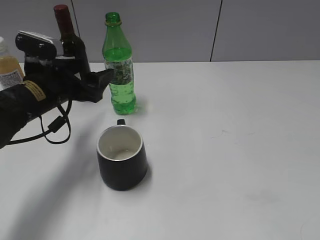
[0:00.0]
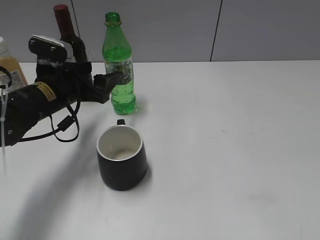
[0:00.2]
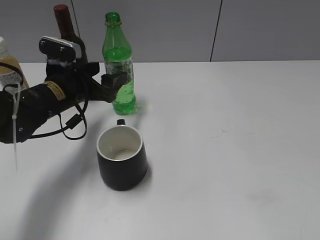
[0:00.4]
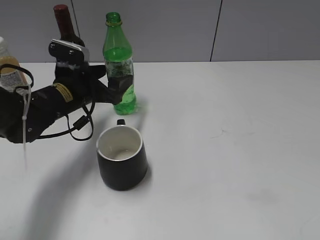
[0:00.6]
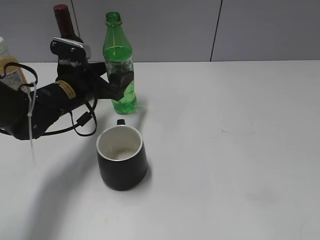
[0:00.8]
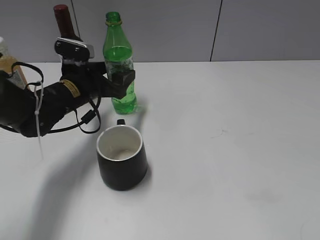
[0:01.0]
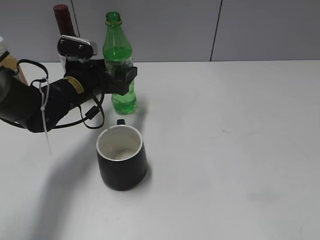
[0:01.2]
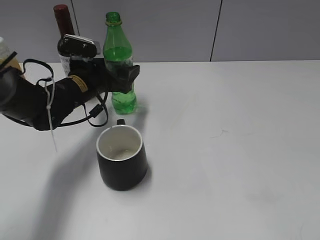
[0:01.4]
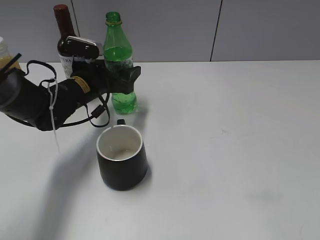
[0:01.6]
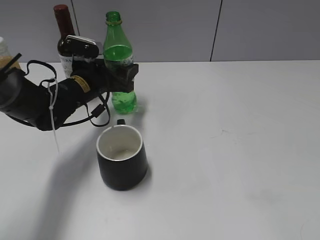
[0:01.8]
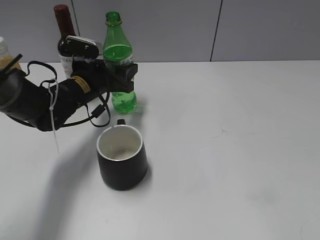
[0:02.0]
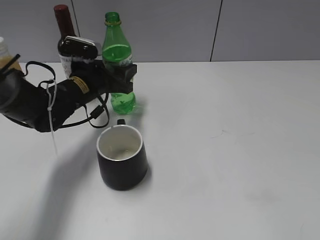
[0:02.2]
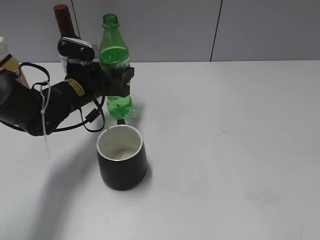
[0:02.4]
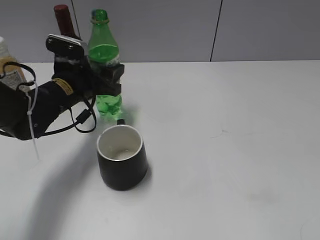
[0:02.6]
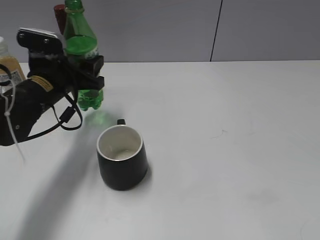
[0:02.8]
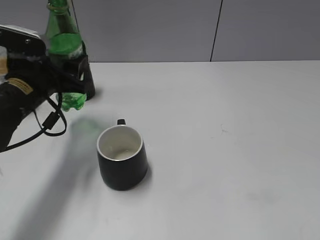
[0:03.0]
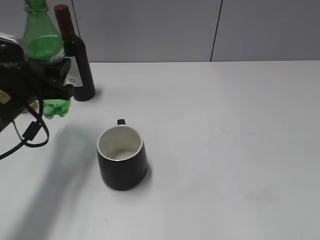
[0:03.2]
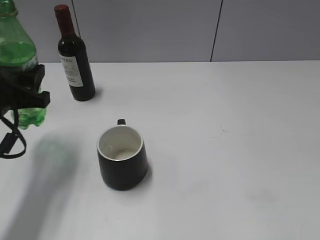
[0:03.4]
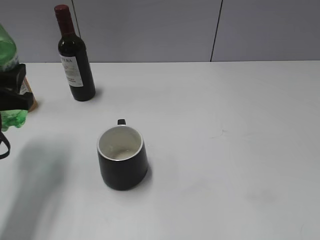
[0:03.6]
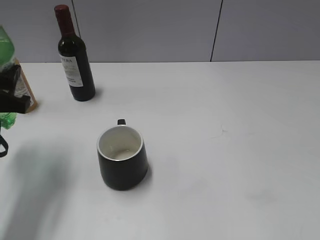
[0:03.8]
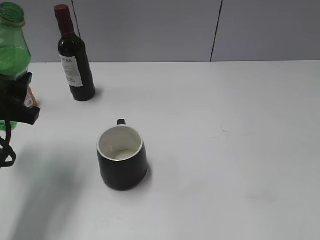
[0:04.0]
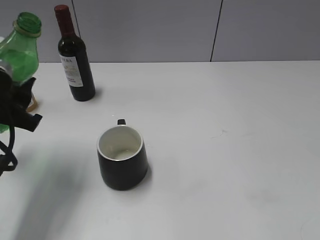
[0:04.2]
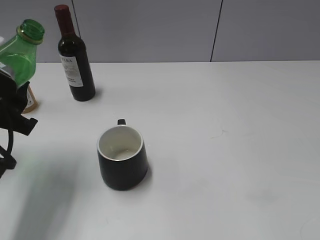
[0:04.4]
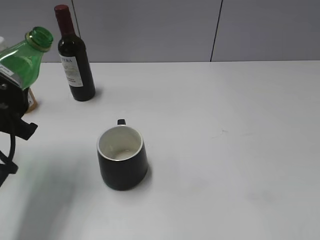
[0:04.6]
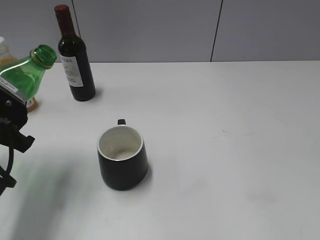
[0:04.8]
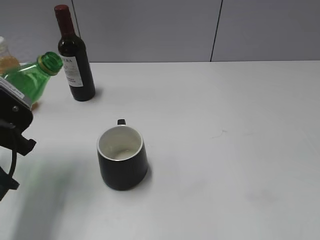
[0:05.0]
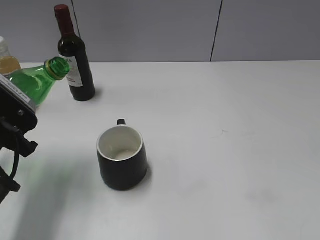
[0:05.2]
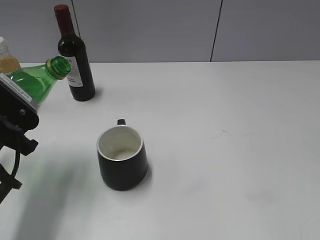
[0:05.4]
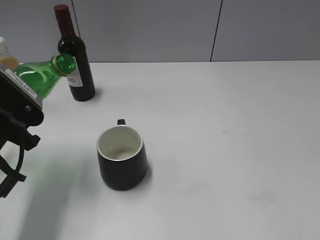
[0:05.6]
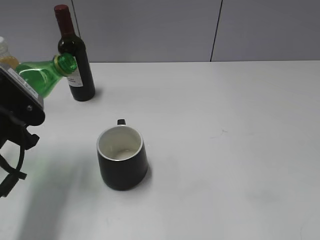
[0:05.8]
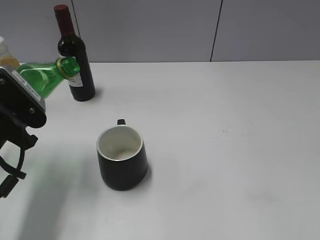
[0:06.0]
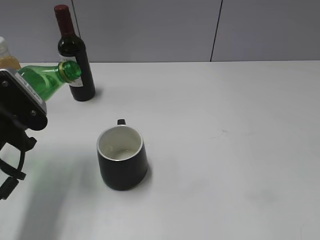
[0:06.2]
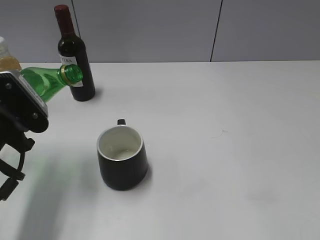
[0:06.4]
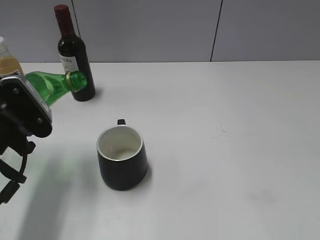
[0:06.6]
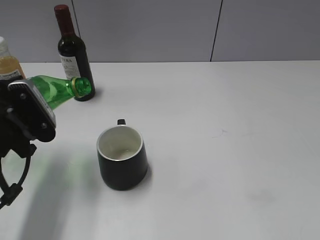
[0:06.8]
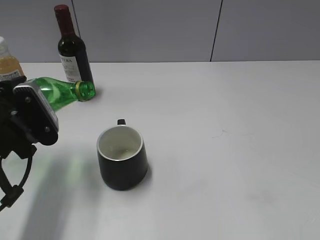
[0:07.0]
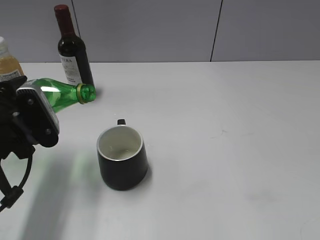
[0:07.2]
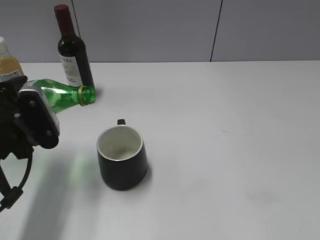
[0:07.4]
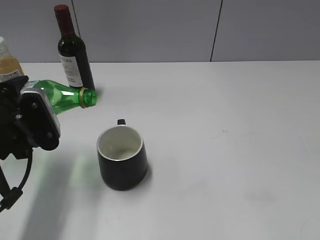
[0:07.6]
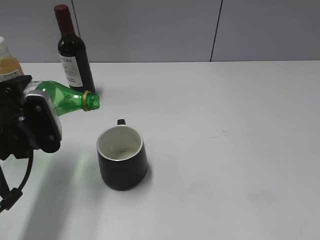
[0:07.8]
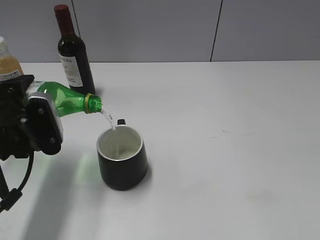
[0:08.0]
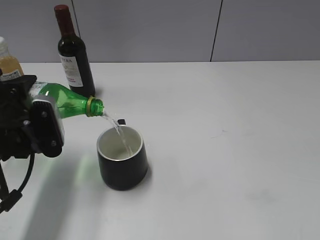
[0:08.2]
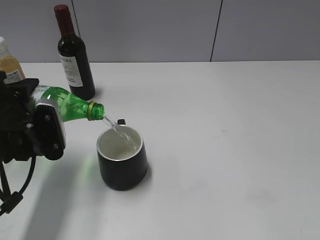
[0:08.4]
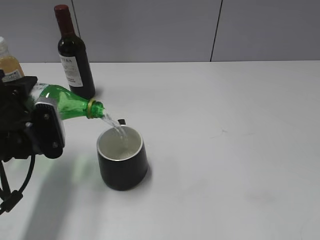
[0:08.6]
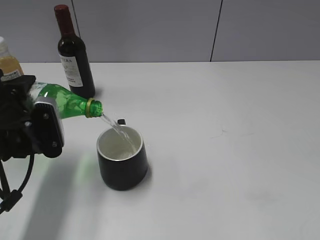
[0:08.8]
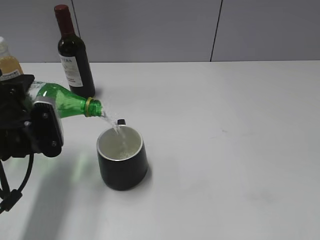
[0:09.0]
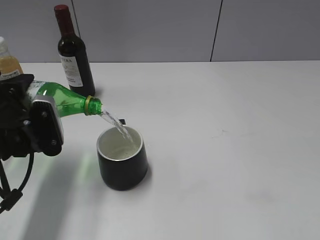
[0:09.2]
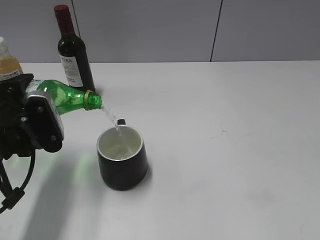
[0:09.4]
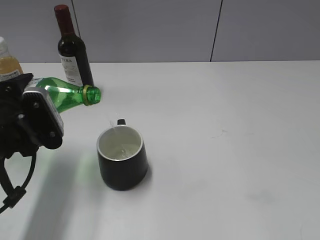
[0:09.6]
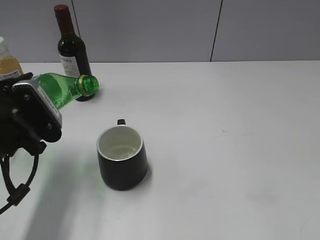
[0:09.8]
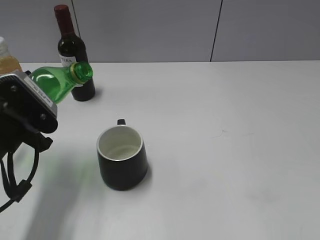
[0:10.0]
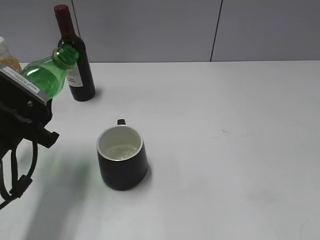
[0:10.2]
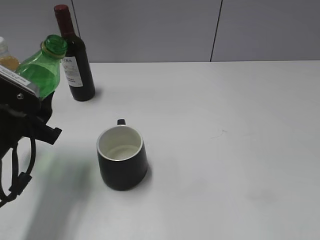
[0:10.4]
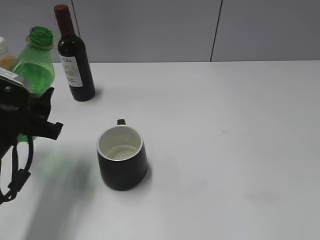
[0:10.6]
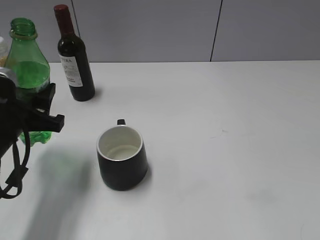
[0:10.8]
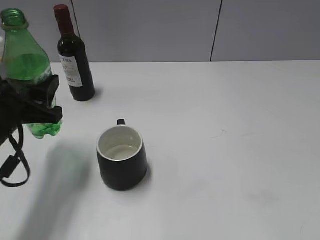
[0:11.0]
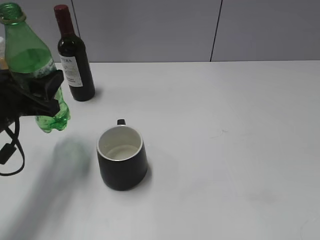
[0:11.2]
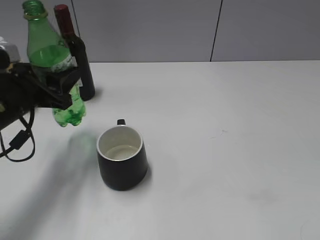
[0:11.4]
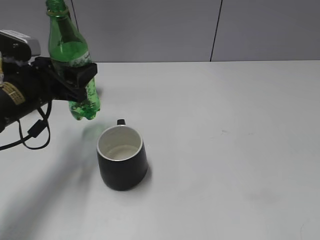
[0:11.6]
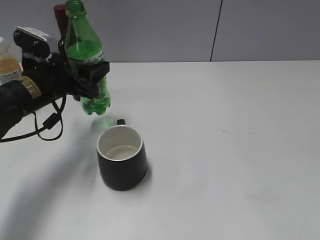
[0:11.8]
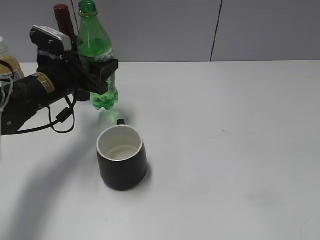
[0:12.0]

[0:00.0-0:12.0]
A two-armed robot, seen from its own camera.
Step, 0.0 to 2.0 s: Grasp the bottle with sprite with left gripper.
Step, 2.4 to 9.8 s: Pour the sprite from bottle to cup with left gripper.
0.0 to 1.6 s: The left gripper heads forward, covering some 10 cm.
1.6 to 3.0 s: The left gripper is displaced backward, to the left and upward by approximately 10 cm, and closes up.
3.0 to 4.4 s: The left gripper is displaced backward by roughly 10 cm.
6.0 to 7.6 s: The grippers make only small movements.
7.6 to 9.0 s: The grippers move only a little.
10.4 to 12.0 s: The left gripper shifts roughly 15 cm forward.

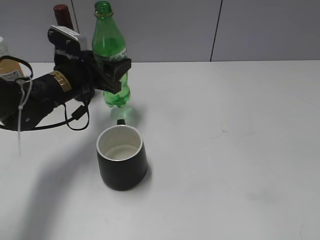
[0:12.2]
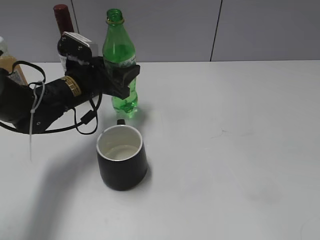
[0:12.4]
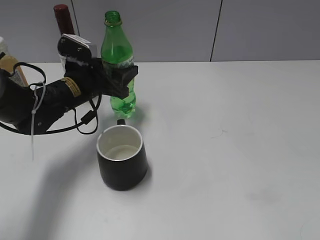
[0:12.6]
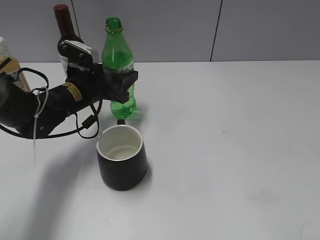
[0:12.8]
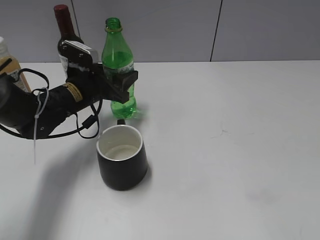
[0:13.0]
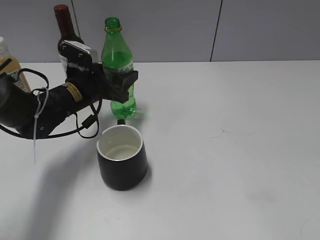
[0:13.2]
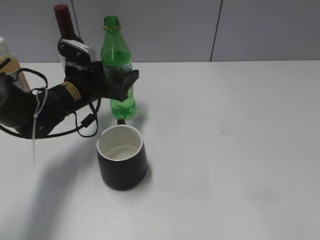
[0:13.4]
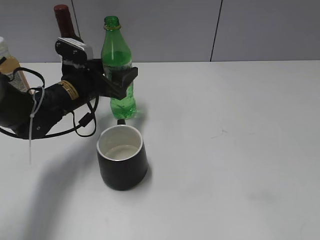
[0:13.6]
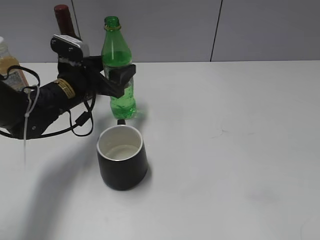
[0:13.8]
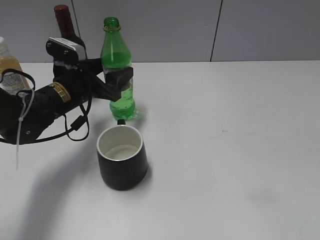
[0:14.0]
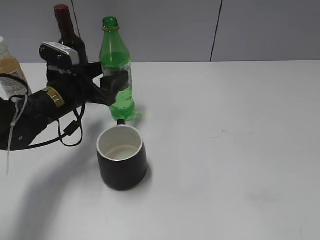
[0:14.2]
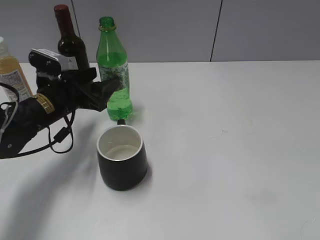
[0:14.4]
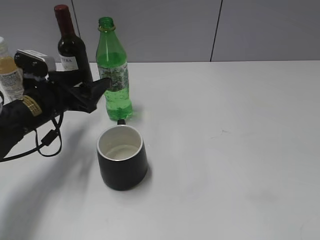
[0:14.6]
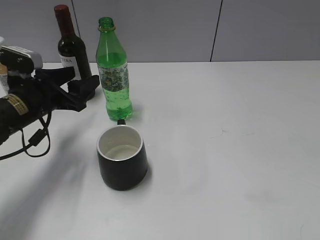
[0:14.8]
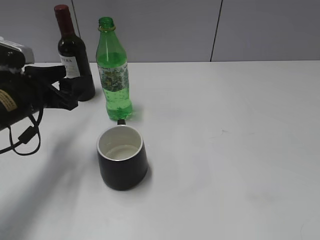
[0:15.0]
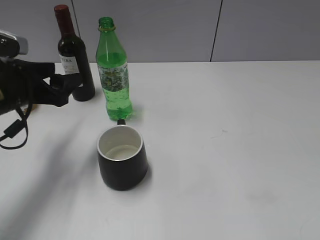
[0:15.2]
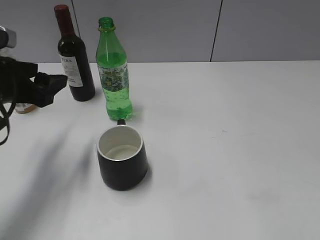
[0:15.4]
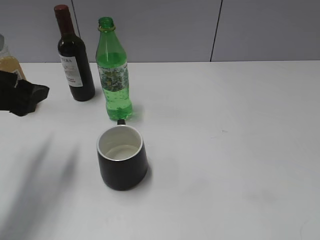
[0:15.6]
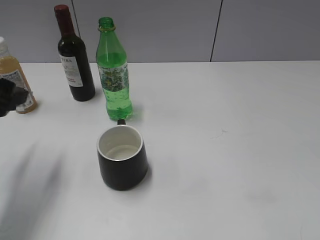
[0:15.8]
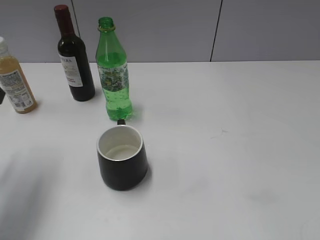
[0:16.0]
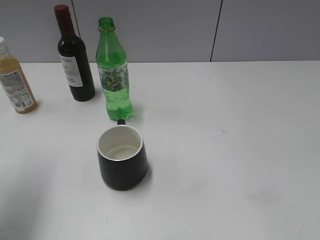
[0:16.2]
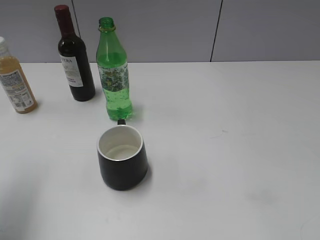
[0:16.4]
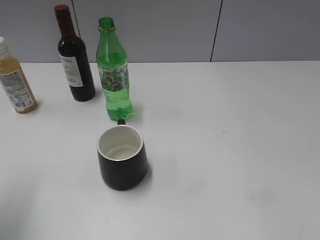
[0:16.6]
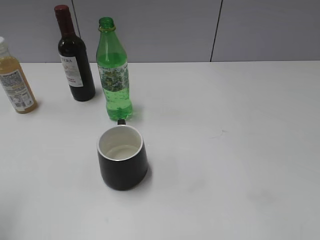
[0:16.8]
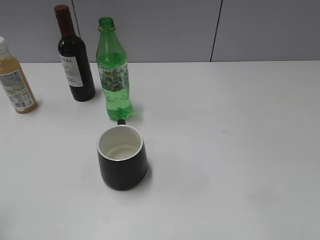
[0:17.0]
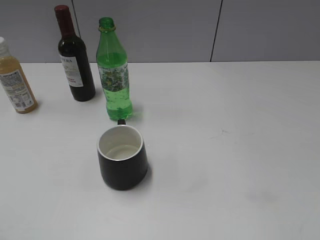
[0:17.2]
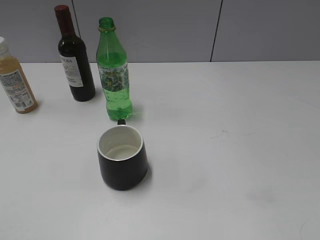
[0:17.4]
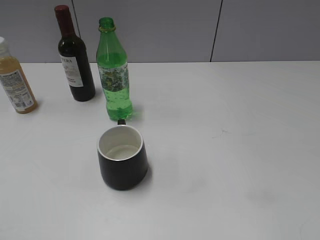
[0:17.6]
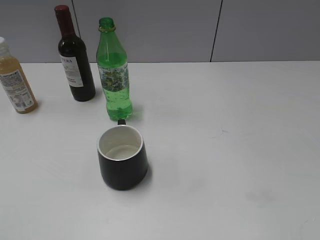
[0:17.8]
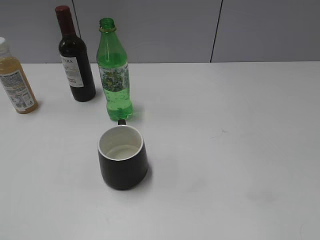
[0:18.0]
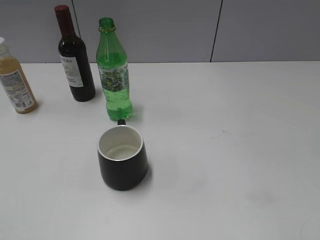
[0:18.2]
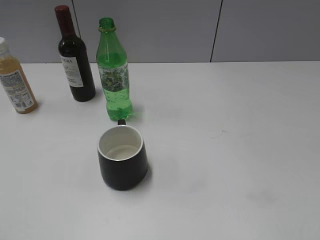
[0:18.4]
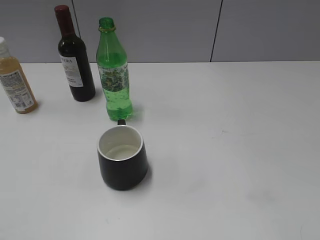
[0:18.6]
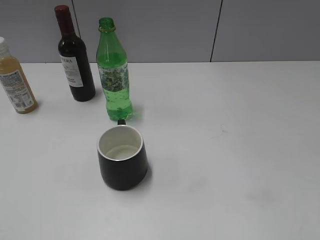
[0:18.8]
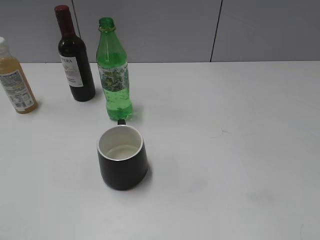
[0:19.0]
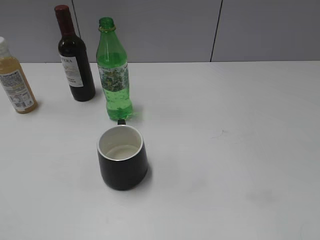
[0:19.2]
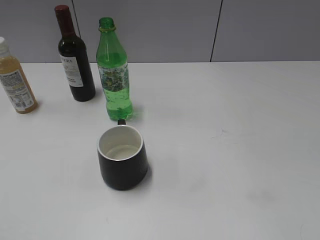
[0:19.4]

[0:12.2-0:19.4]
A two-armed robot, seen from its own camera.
Step, 12.2 to 14.2 s: Place the sprite bottle on the table with left gripper.
12.2 to 13.6 s: The left gripper opens up.
13.6 to 15.0 s: The left gripper goes about 10 cm backward and to the left.
15.0 to 16.6 s: The left gripper goes approximately 20 cm upward and backward.
16.6 to 18.0 s: The left gripper goes roughly 20 cm backward.
18.0 to 19.4 s: Neither gripper changes place.

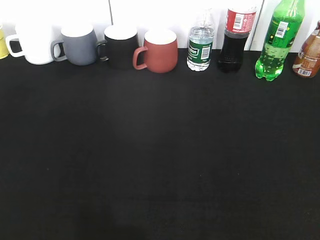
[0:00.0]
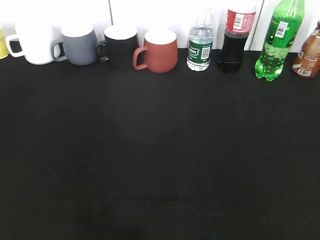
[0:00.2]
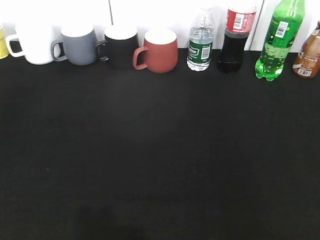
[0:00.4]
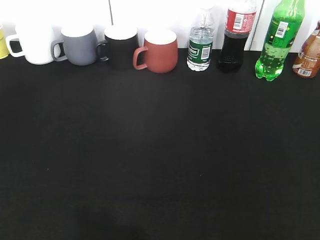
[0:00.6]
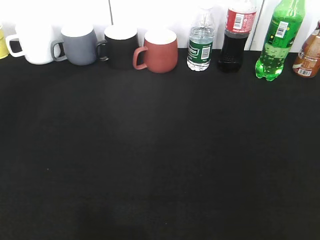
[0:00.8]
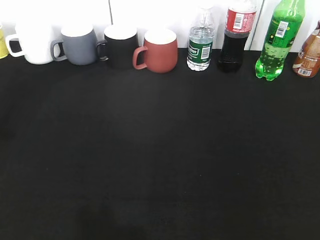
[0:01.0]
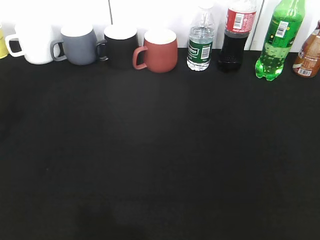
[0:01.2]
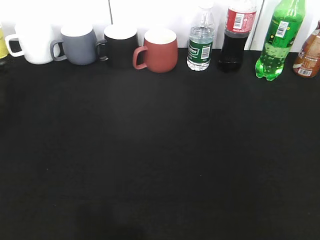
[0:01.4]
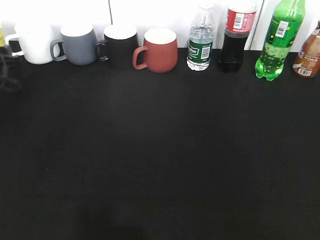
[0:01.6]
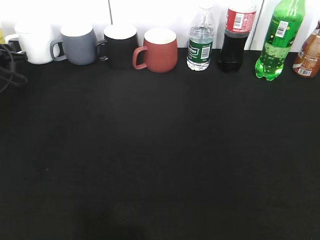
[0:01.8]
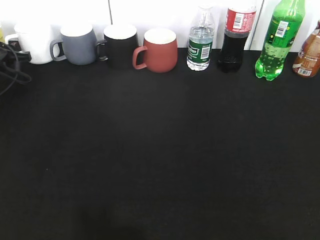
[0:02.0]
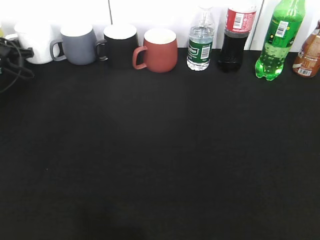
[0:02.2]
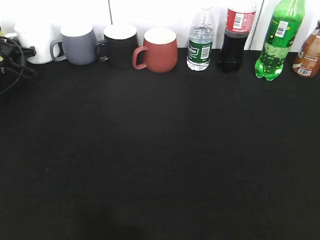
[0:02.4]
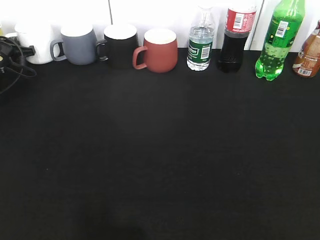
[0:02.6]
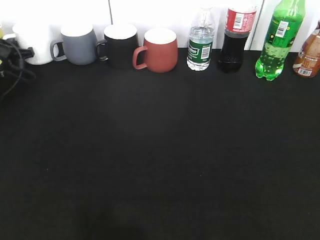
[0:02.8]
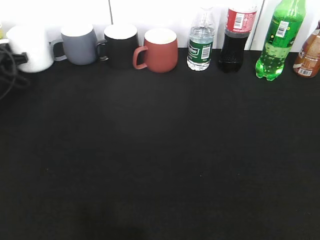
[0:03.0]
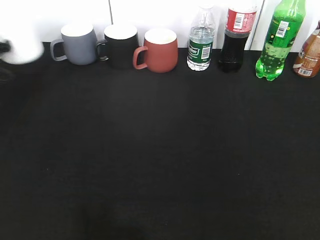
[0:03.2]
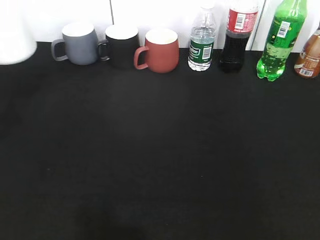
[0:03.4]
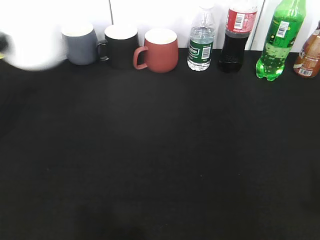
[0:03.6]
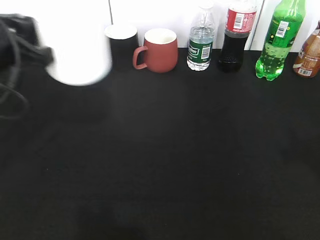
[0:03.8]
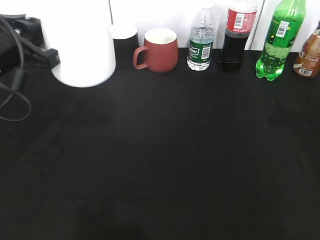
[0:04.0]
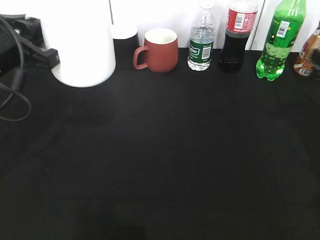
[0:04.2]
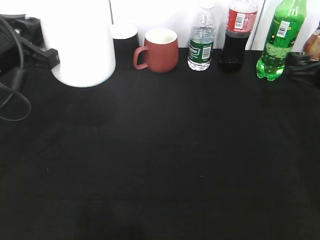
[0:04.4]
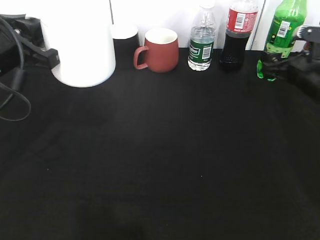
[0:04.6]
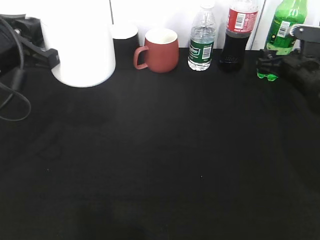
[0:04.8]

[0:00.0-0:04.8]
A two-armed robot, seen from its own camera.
Step, 2.8 to 4.0 s: Lift the white cup with left gripper.
0.0 to 1.6 s: The left gripper goes approximately 40 cm forward.
1.6 to 3.2 s: The left gripper travels forward and back again, approximately 10 cm each way, and closes its fingers.
3.2 to 4.8 s: The left gripper shifts about 20 cm to the right, backward and upward; the right gripper goes some 40 cm forward.
